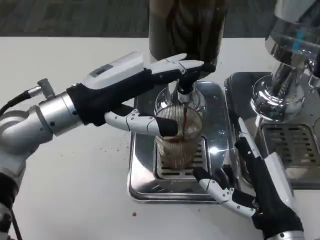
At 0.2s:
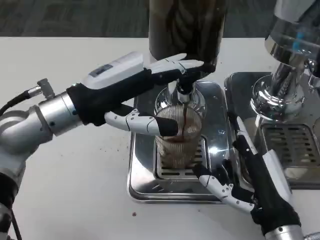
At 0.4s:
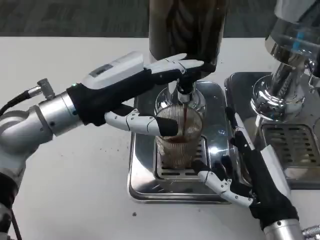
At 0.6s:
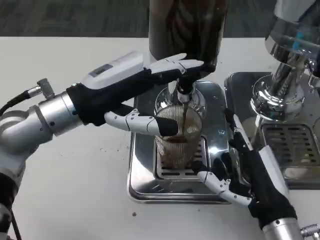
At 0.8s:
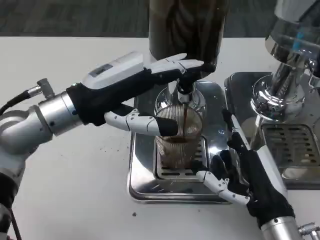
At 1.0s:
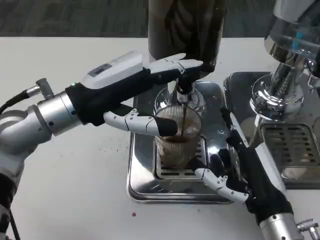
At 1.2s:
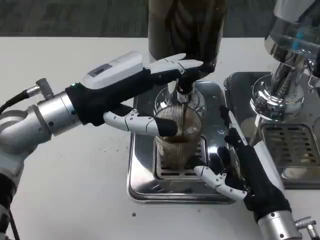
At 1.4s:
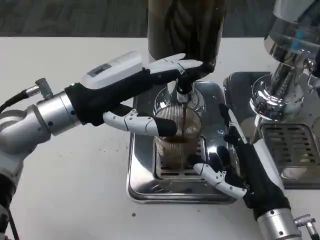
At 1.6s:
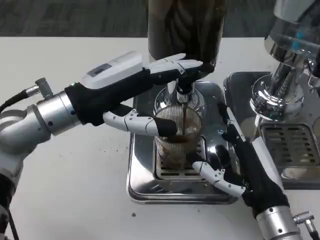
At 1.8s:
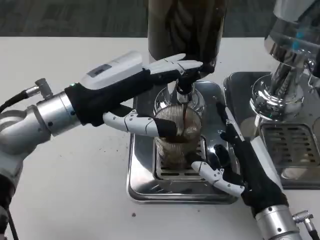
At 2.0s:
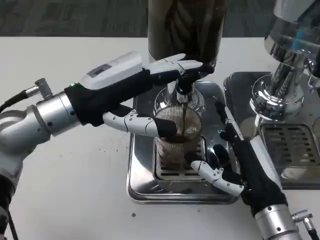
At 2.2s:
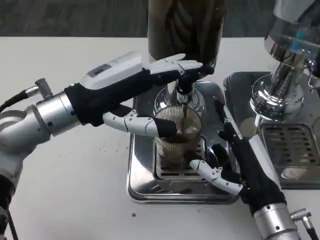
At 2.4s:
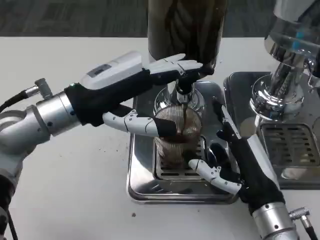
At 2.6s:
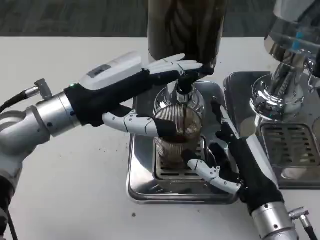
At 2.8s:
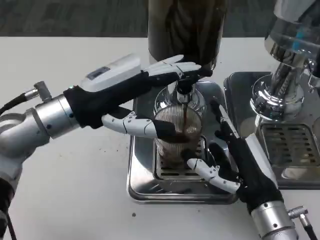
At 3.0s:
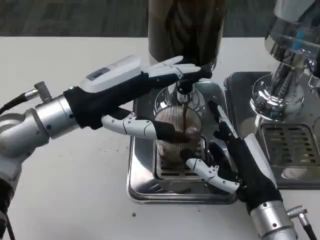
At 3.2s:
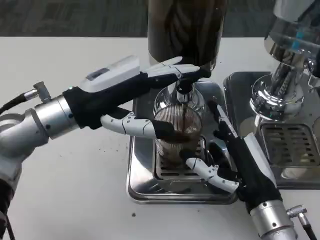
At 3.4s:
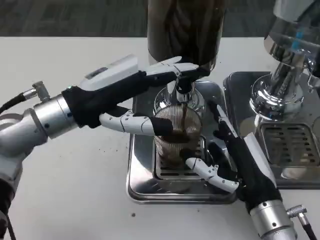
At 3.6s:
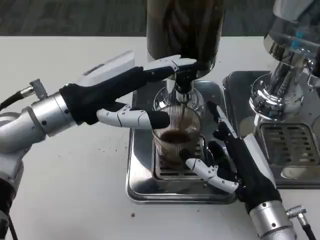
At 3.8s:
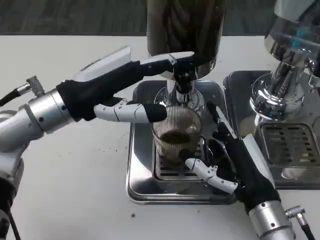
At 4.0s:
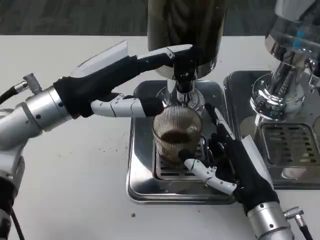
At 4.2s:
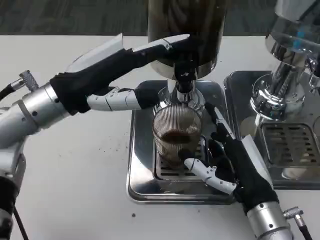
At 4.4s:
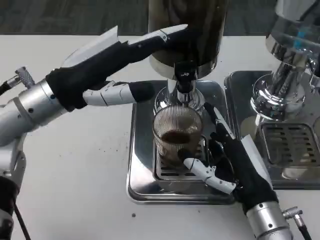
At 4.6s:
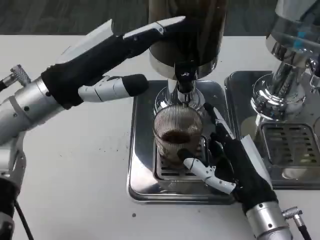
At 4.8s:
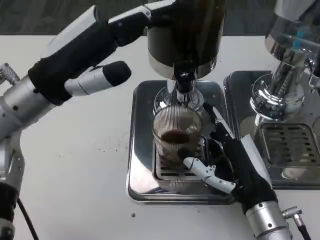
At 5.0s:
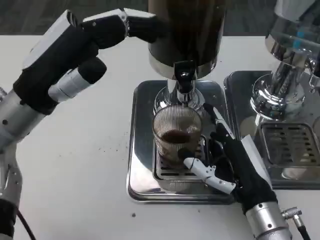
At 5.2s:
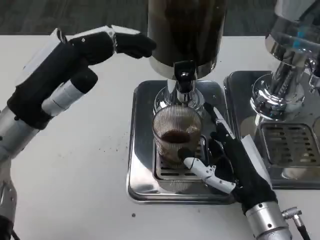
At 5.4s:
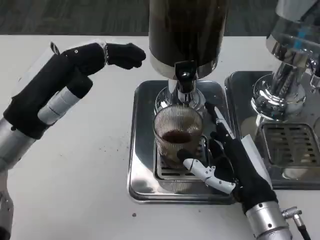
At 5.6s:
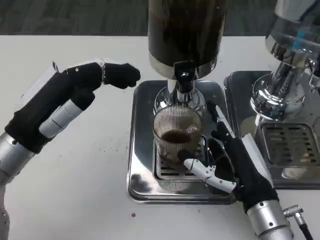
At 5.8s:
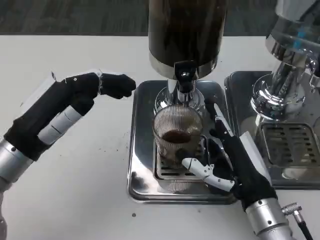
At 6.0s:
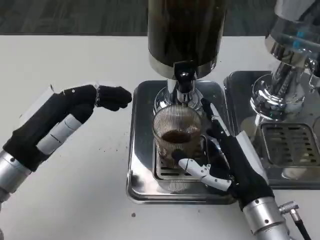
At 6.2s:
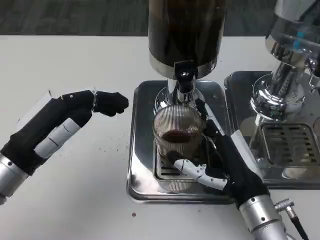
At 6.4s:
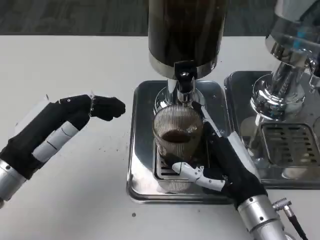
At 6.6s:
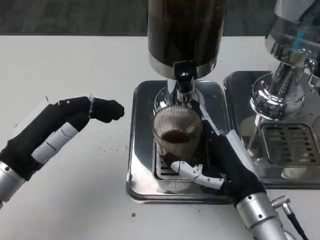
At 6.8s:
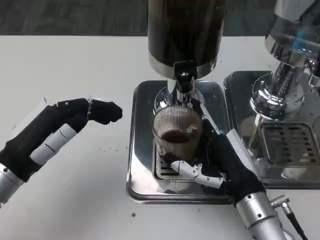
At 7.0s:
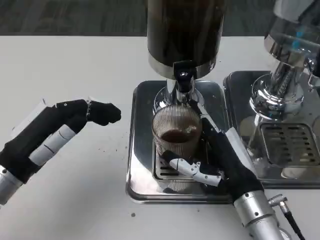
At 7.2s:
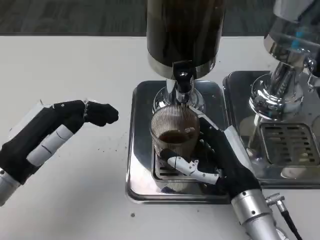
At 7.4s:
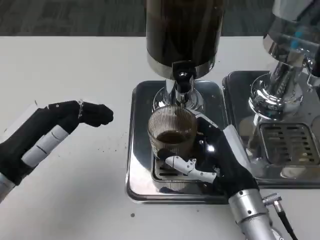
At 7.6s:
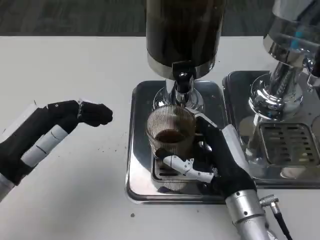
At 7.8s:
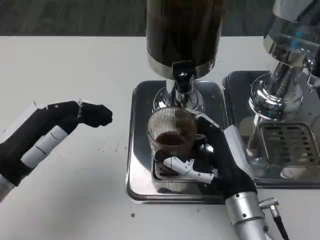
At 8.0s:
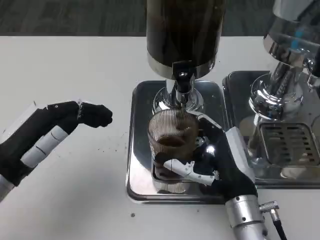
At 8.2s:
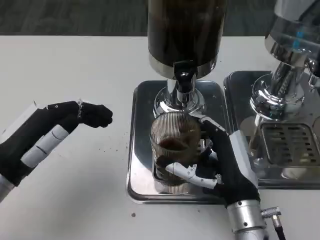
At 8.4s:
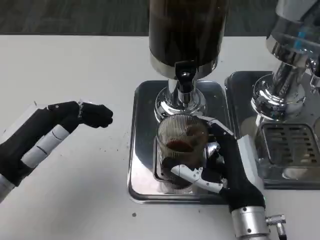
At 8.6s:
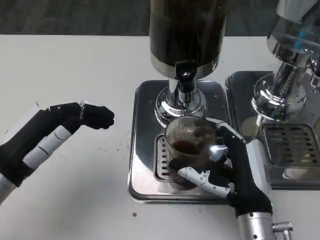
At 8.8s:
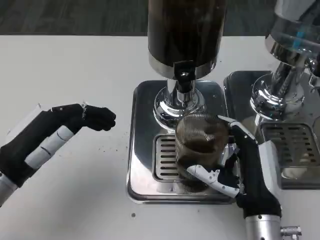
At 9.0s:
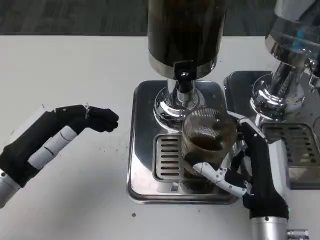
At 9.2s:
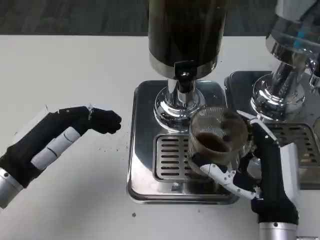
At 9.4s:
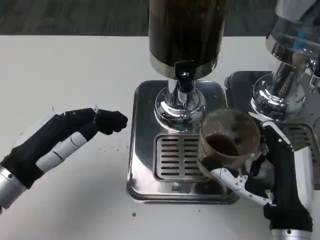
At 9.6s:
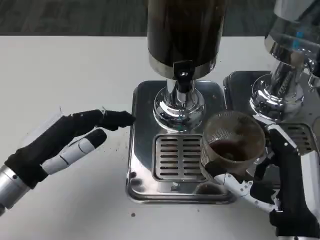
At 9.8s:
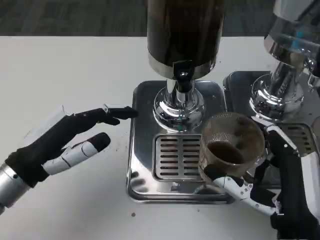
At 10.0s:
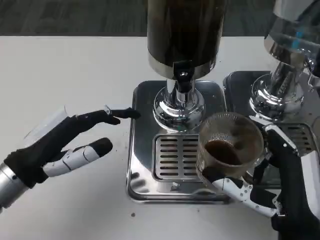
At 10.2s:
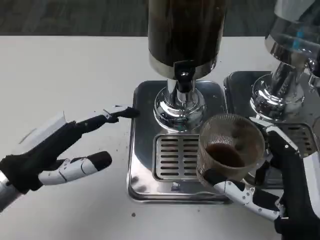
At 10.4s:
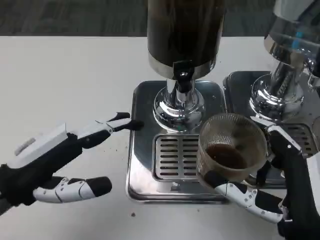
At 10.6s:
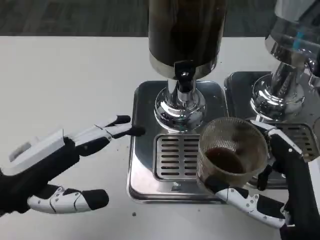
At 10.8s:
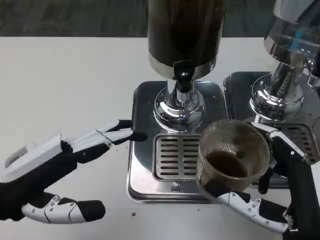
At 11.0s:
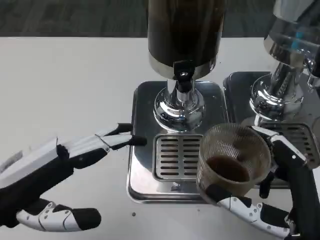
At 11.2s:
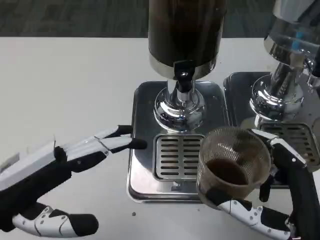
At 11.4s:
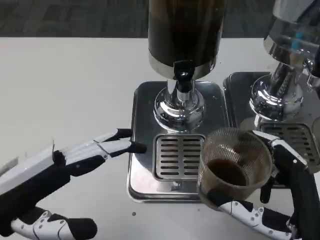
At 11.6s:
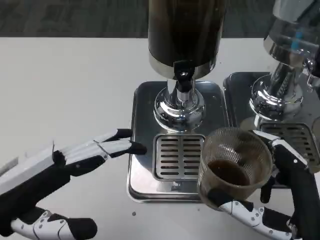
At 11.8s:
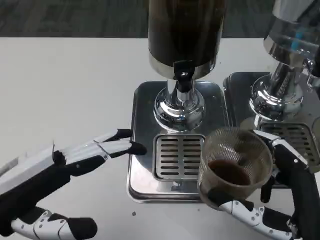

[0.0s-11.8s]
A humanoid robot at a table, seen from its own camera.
Task of the whole recording: Grasp the cup under the faucet to collect the drink, then remove the cup.
0.0s to 1.4s: The hands make only small movements.
1.4s to 3.0s: Neither hand changes place.
4.4s to 6.0s: The left hand travels downward and backward by roughly 10 cm.
8.8s to 10.4s: The right hand goes about 5 cm backward.

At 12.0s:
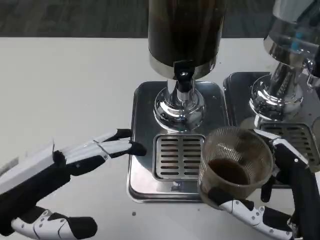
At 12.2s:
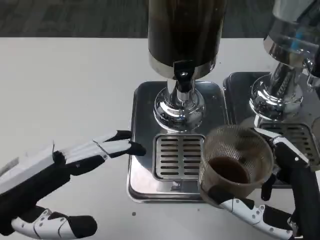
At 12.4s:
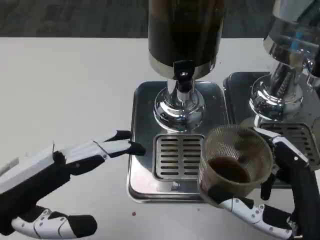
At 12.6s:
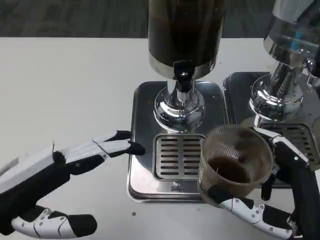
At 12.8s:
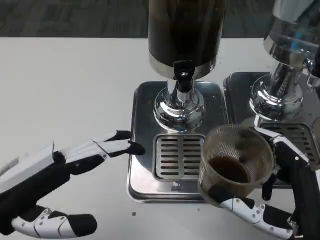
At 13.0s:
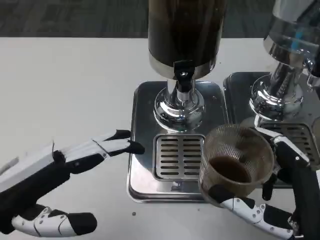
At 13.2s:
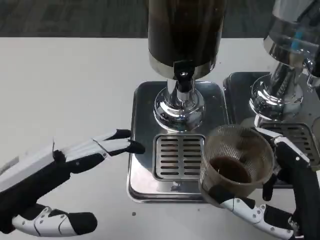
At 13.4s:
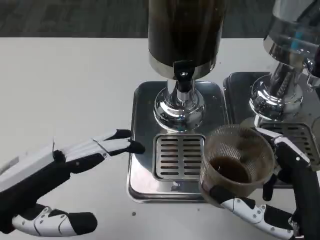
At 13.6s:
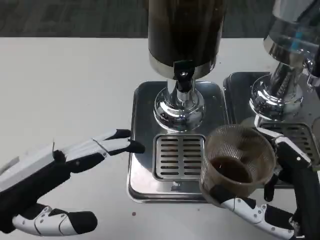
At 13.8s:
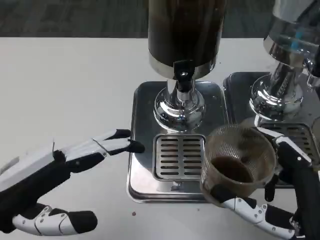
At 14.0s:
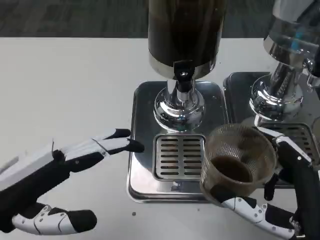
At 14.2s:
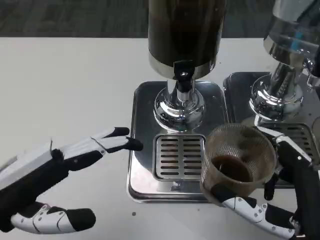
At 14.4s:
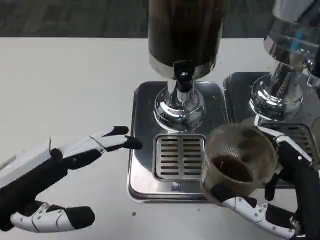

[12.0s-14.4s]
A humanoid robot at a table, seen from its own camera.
Task of the whole recording: Grasp the cup under the faucet to collect the drink, then remove the cup.
12.0s to 14.4s: Neither hand changes place.
